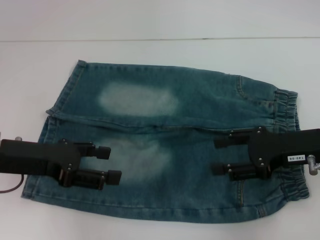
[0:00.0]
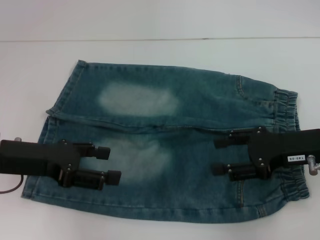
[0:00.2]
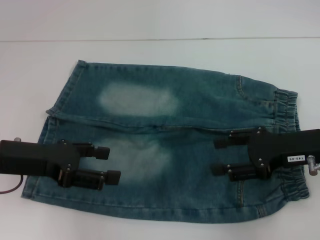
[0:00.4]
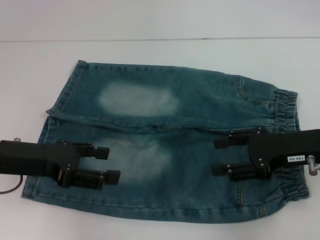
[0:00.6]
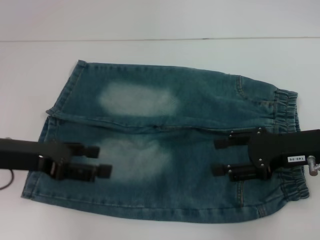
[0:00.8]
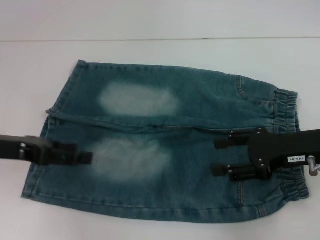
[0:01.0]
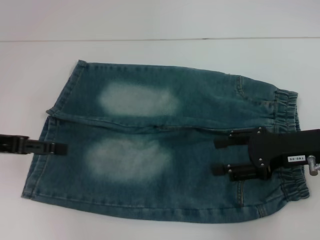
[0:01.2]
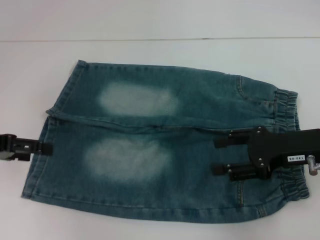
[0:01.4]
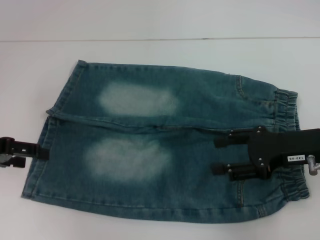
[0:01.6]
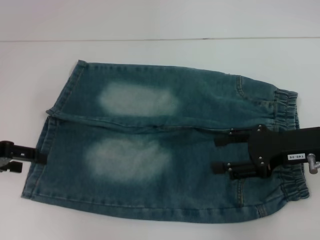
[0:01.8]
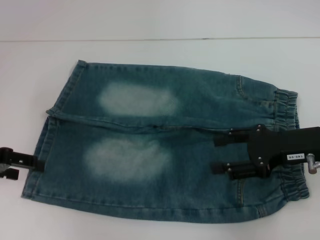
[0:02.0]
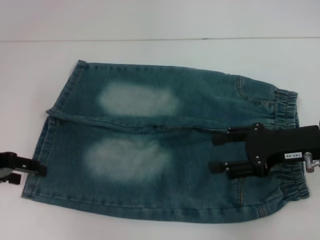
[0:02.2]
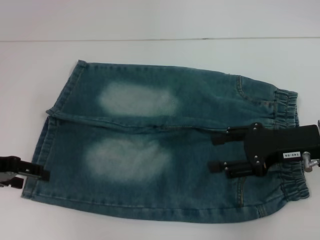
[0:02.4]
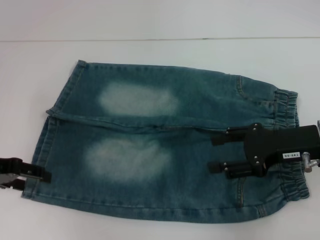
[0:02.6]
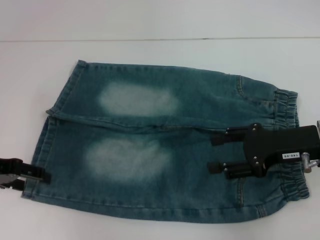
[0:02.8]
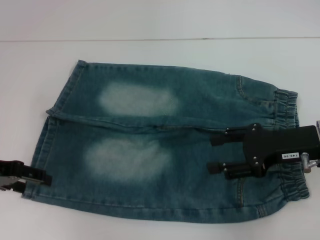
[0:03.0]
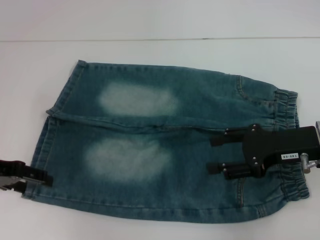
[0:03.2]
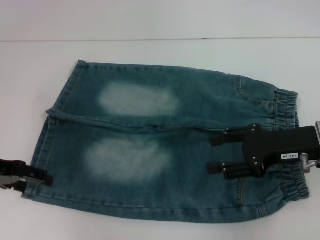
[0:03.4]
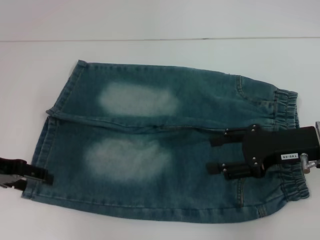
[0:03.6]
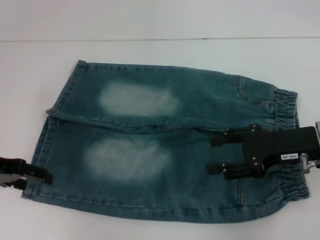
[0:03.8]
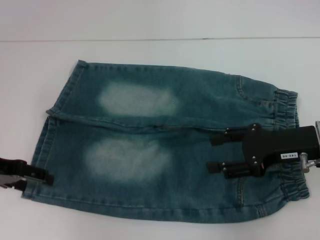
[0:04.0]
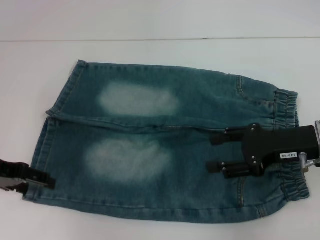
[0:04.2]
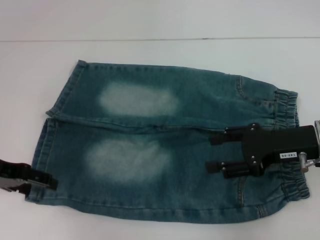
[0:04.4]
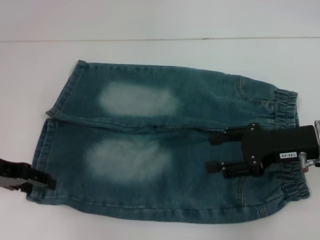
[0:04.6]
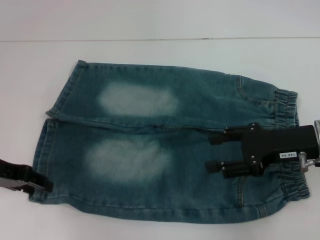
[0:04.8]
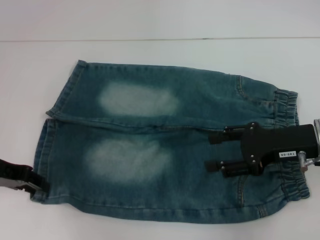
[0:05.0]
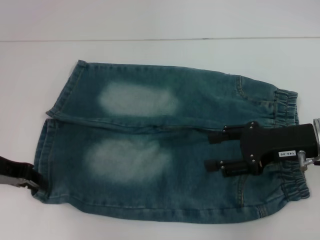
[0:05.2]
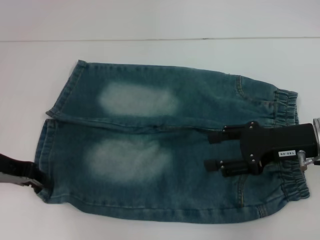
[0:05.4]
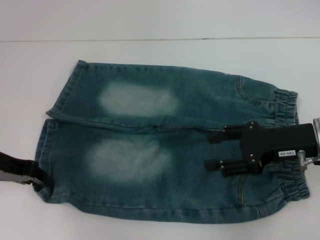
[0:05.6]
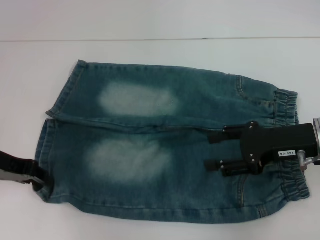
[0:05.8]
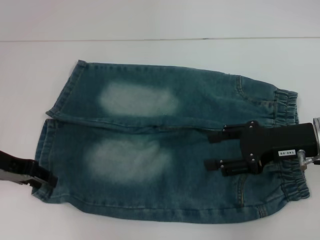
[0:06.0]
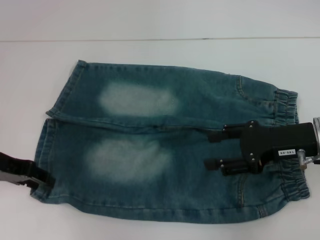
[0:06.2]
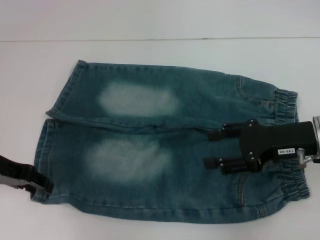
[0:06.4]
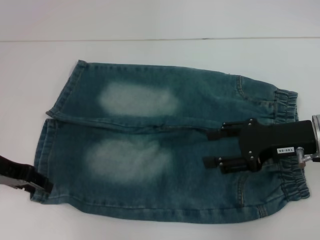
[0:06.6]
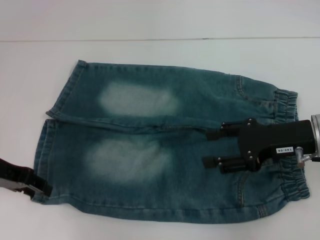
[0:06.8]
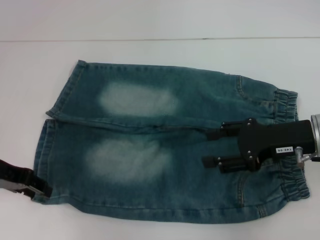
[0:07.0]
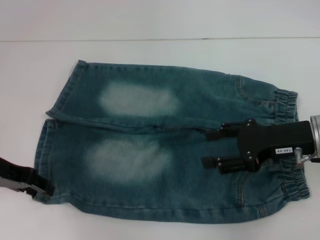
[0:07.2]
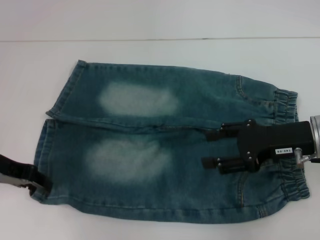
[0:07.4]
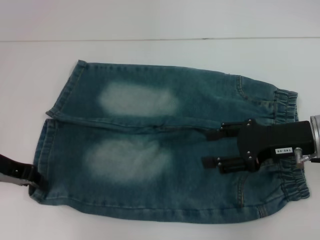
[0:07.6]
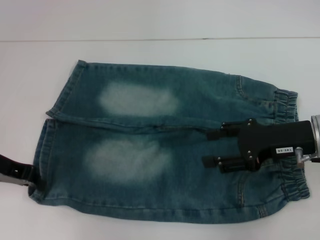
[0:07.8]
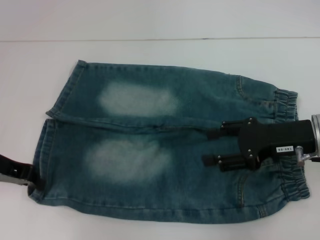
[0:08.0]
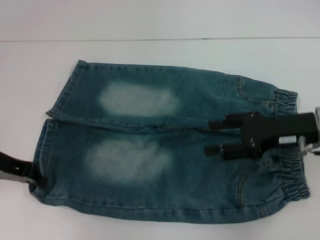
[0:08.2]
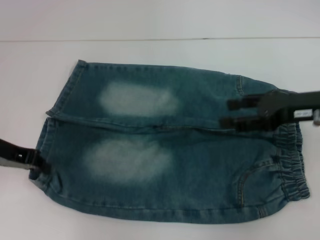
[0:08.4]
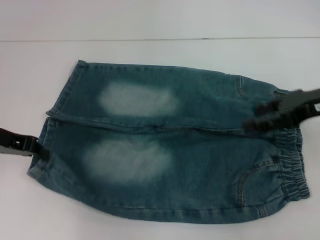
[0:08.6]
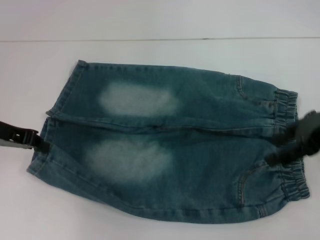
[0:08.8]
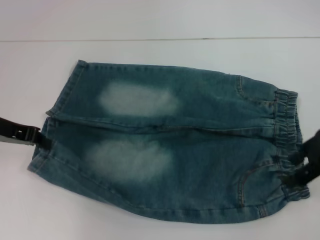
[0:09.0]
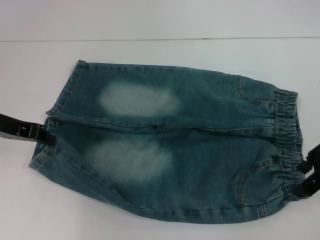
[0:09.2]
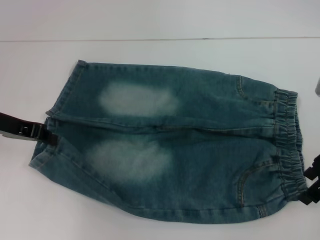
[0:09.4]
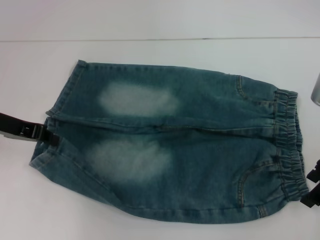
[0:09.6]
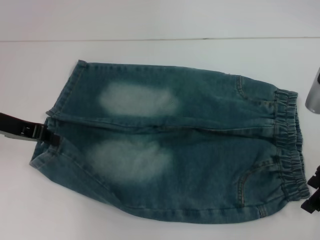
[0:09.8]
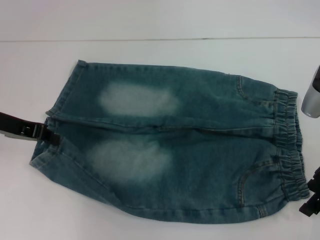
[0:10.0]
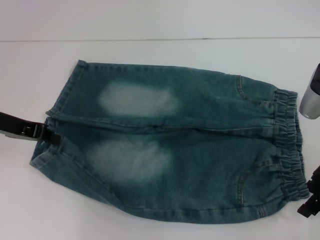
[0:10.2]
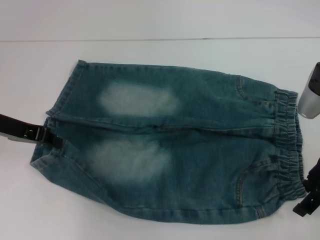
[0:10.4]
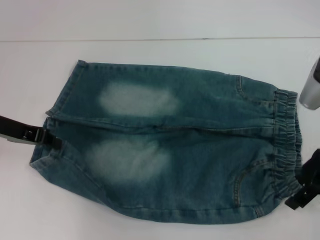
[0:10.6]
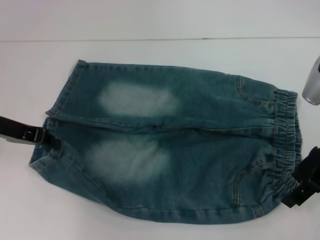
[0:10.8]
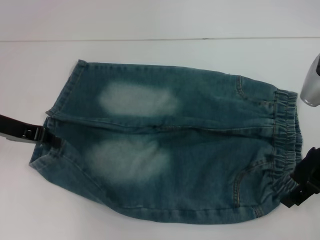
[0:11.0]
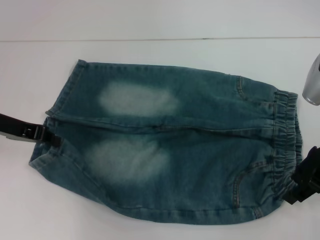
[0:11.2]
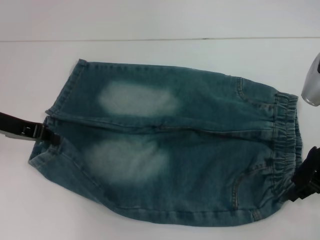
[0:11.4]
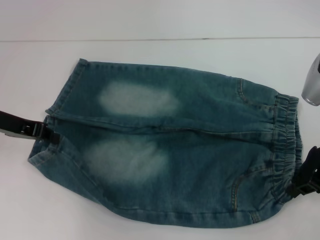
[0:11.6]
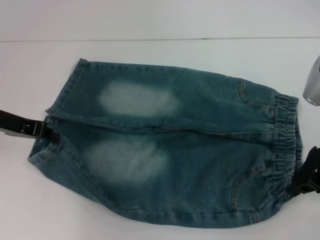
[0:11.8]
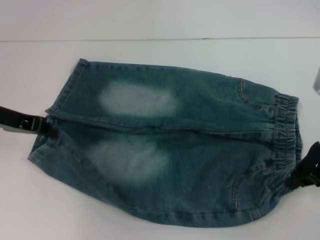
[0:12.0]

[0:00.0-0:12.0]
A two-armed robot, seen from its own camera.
Step, 0:00.0 to 0:08.0: Grab the lower left pant leg with your left hand.
Step, 0:08.2 to 0:11.8: Hold the lower right waistband with your right hand.
0:00.0 to 0:01.6: The left gripper heads to the left, covering some 10 cm.
0:01.6 to 0:03.0: There are only small adjustments of the grippers.
0:03.0 to 0:04.4: Both grippers stay about where they are.
0:04.4 to 0:06.0: The left gripper closes up.
0:06.0 to 0:07.6: Neither gripper changes place.
0:07.6 to 0:09.0: The right gripper goes approximately 5 cm upward.
0:09.0 to 0:10.4: There are only small adjustments of the grippers.
0:10.4 to 0:12.0: The right gripper closes.

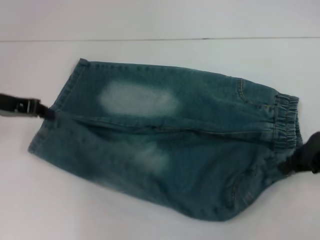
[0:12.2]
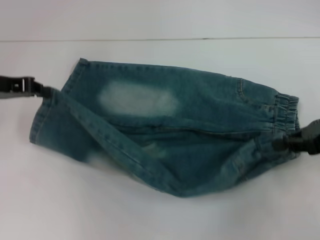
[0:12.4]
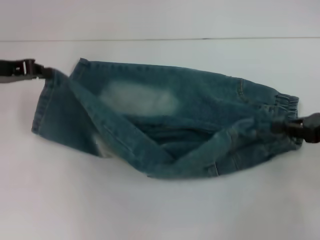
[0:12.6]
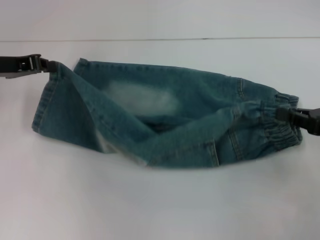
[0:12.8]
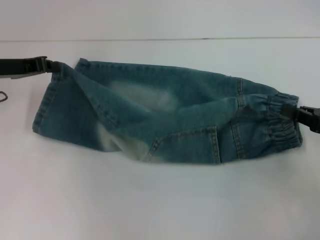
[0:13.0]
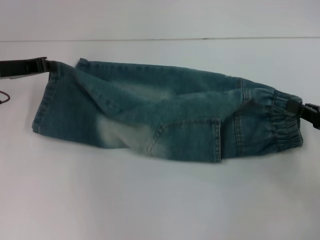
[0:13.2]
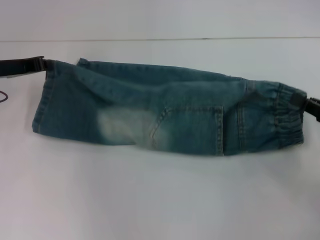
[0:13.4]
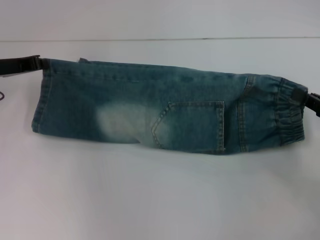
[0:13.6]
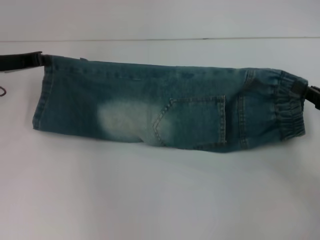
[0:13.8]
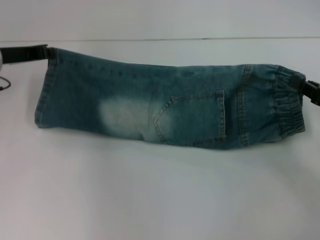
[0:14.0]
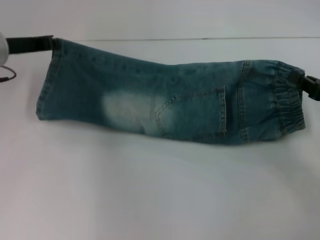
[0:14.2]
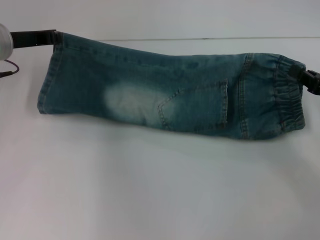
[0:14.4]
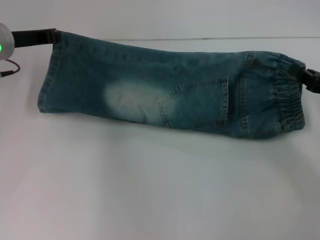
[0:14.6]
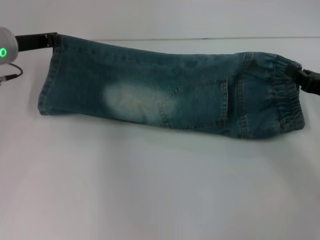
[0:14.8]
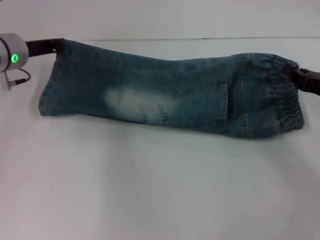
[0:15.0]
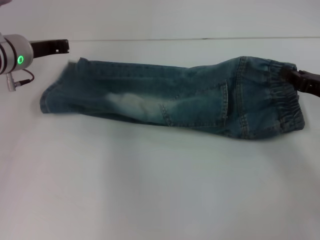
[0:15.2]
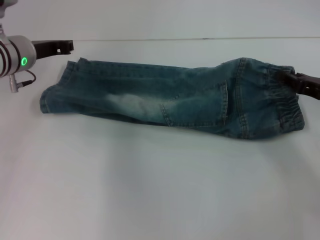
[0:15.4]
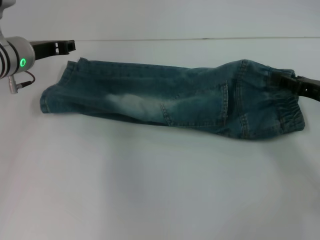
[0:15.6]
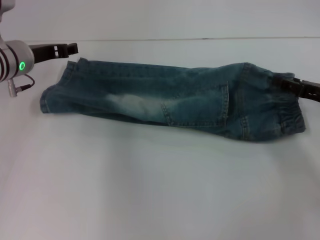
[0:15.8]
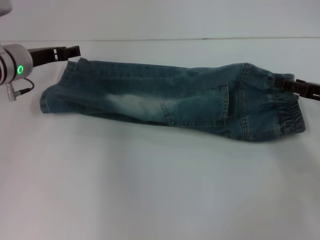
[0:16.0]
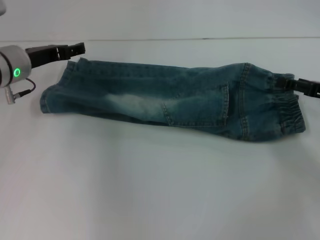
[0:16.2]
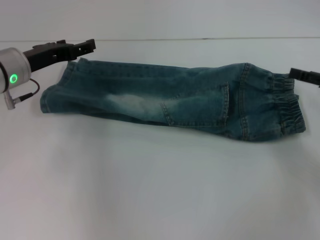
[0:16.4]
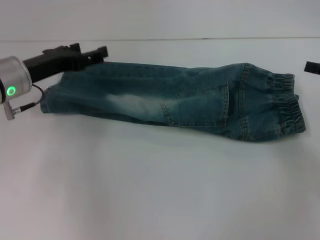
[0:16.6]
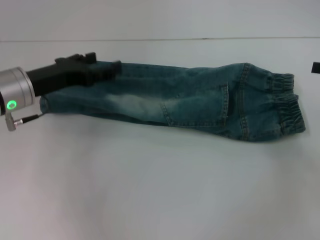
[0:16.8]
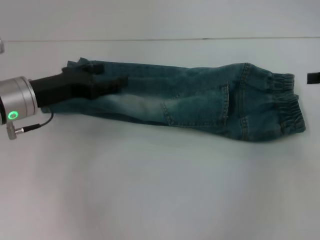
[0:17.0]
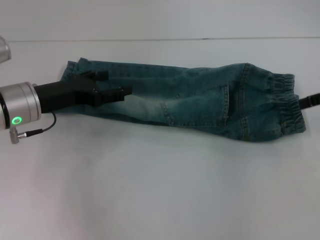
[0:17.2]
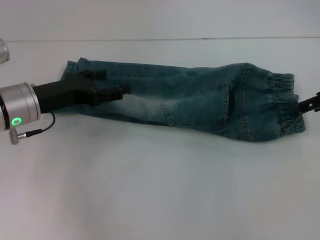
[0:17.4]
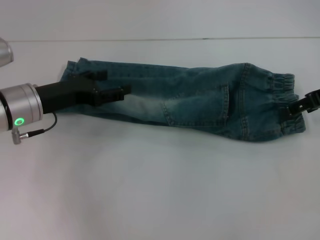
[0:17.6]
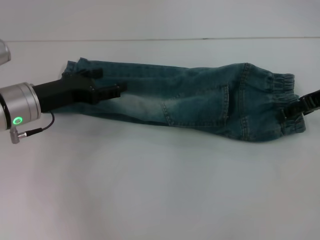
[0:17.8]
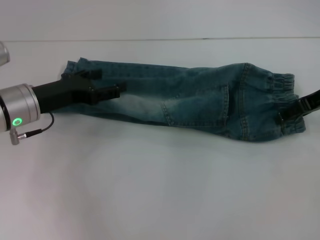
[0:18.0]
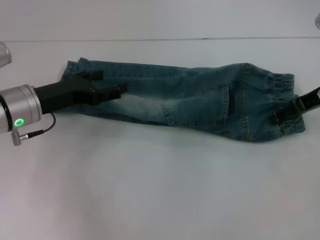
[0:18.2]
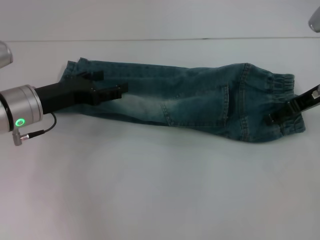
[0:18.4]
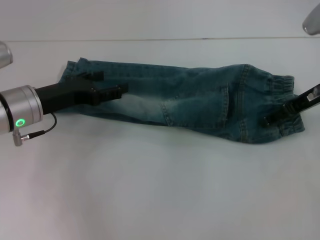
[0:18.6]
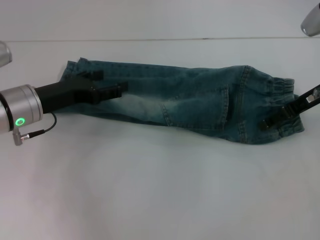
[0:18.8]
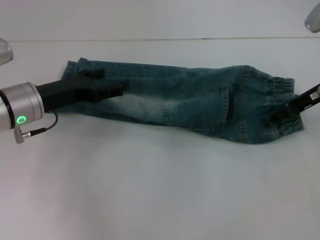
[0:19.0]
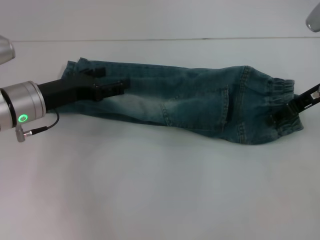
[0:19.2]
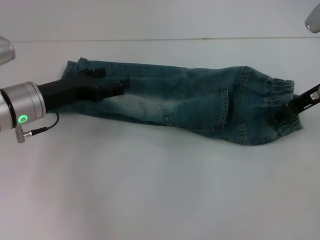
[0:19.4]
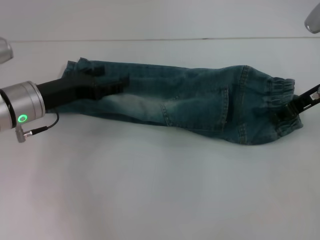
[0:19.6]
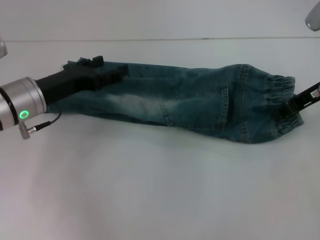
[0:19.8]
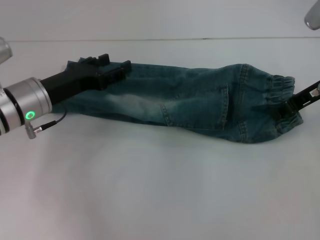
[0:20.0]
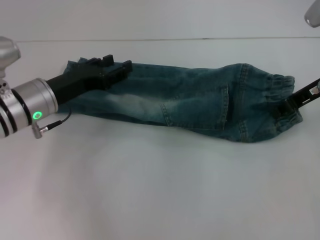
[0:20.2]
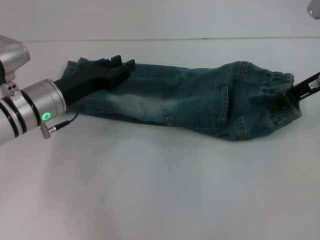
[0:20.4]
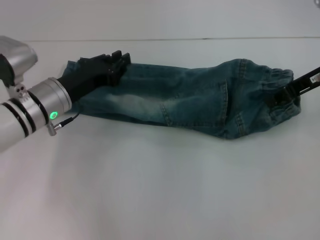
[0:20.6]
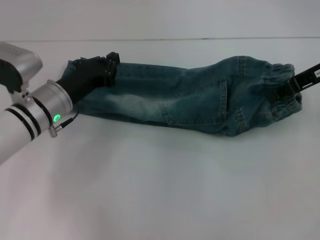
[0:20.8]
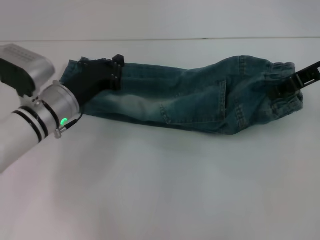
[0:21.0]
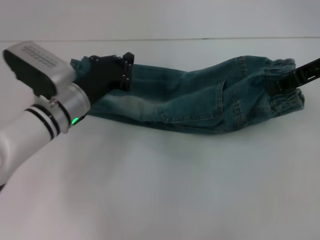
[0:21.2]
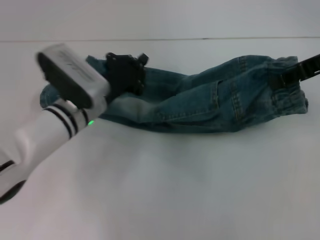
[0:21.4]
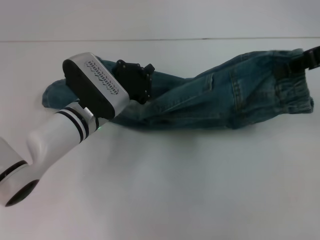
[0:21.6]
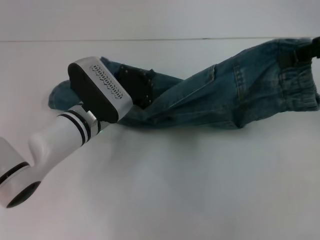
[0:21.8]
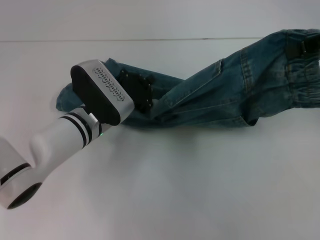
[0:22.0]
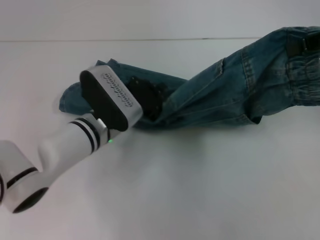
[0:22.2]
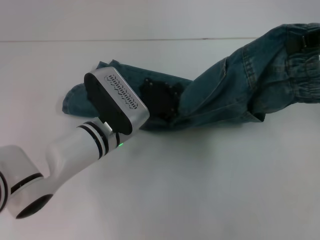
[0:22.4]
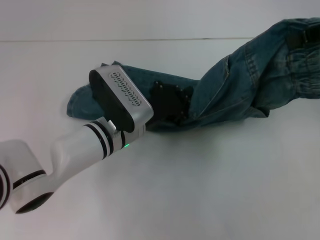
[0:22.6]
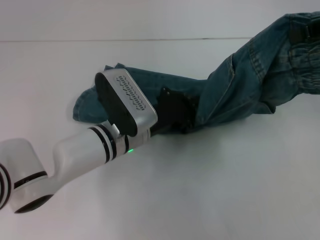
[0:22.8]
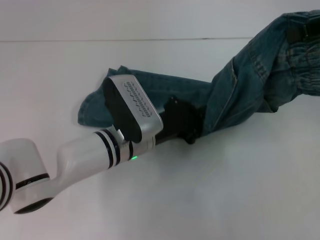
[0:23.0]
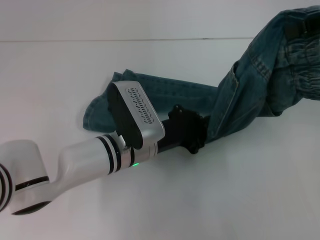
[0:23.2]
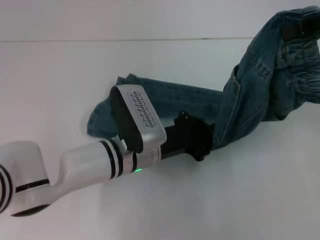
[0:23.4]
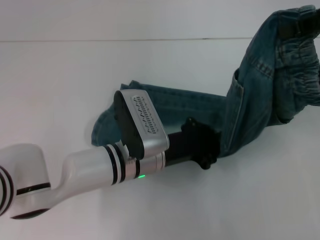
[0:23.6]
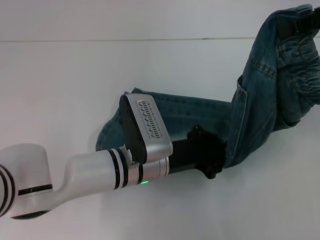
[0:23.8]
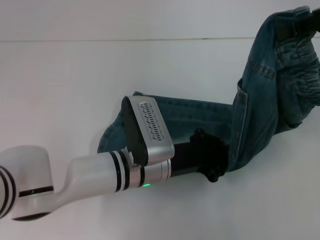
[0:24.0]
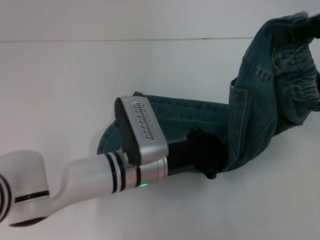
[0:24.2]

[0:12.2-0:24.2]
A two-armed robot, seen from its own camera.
Step, 0:12.2 to 0:16.2: Fold upward with your right hand.
Step, 0:16.4 to 0:20.0: Grab the waistband with your right hand.
0:12.2 to 0:13.8: The right gripper is displaced downward and to the right by approximately 10 cm.
0:13.8 to 0:15.2: The right gripper shifts by some 5 cm. Meanwhile the left gripper travels to the right by roughly 5 cm.
0:15.2 to 0:16.6: The left gripper heads backward, covering about 5 cm, and opens up; the right gripper shifts some 10 cm to the right and upward, and opens up.
0:16.6 to 0:18.2: The right gripper moves to the left and forward, some 10 cm.
0:18.2 to 0:19.8: The right gripper closes up.
0:19.8 to 0:21.2: The left gripper heads to the right, covering some 5 cm, and closes. Meanwhile the right gripper travels upward by approximately 5 cm.
0:21.2 to 0:22.6: The left gripper moves to the right, about 10 cm. The right gripper heads upward, covering roughly 5 cm.
0:22.6 to 0:24.2: The left gripper changes place by some 5 cm.
